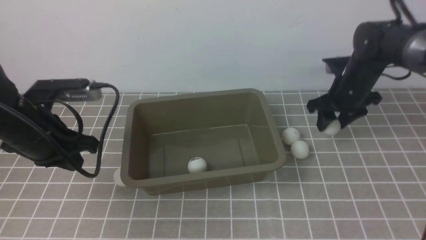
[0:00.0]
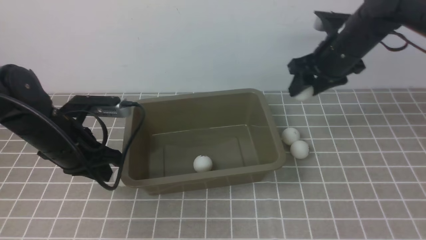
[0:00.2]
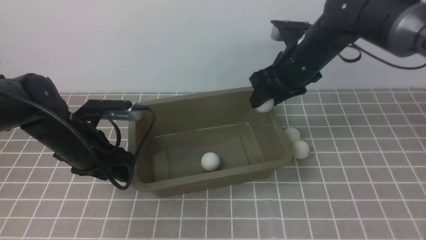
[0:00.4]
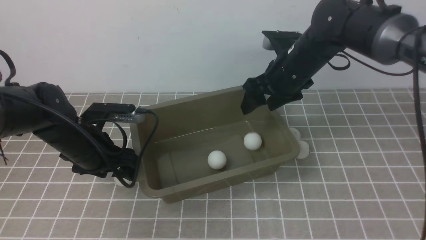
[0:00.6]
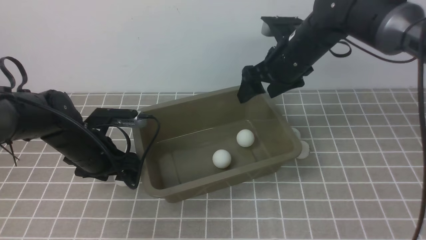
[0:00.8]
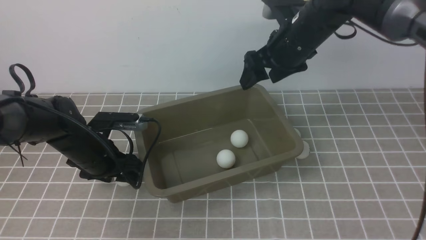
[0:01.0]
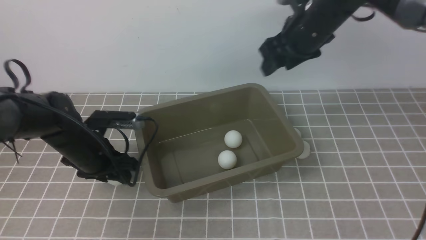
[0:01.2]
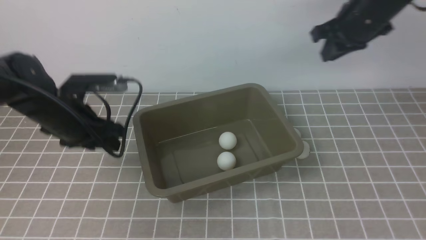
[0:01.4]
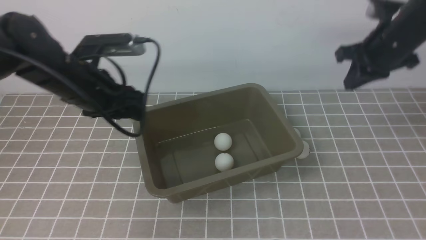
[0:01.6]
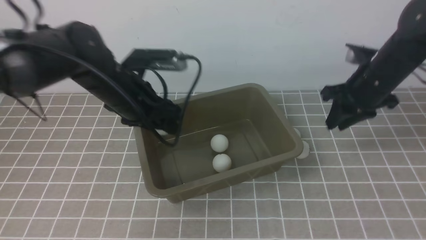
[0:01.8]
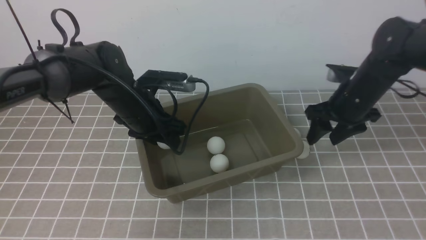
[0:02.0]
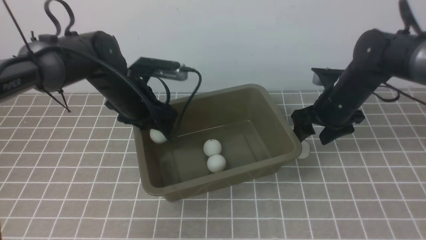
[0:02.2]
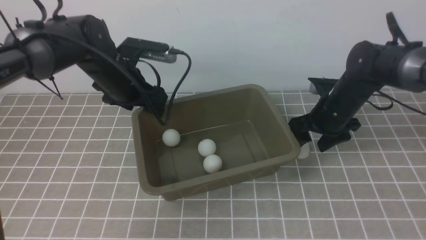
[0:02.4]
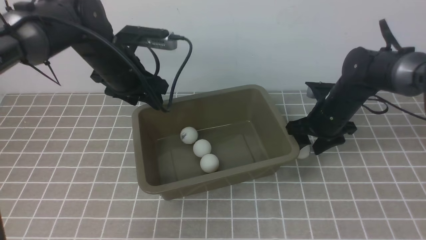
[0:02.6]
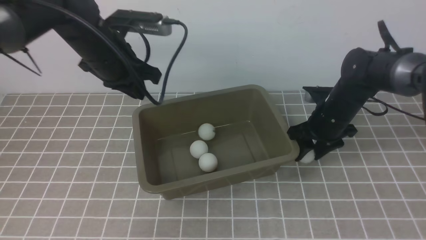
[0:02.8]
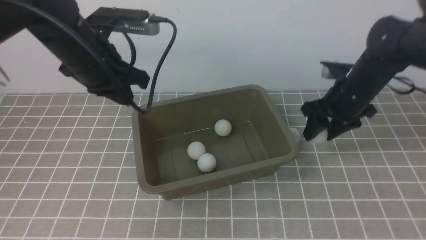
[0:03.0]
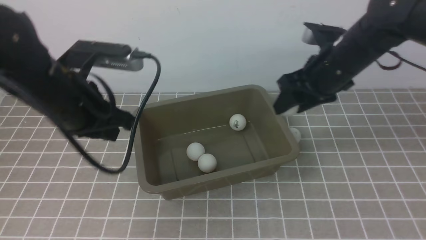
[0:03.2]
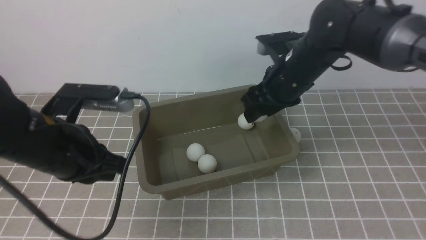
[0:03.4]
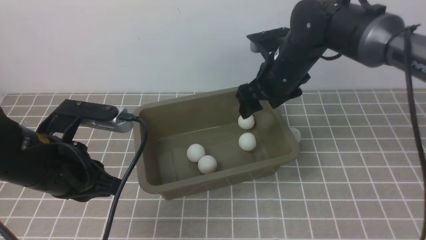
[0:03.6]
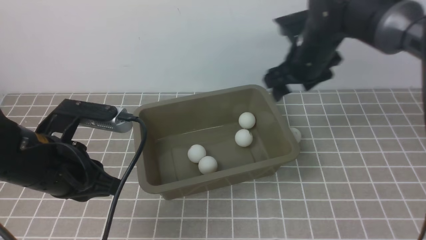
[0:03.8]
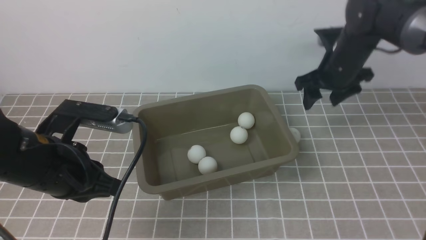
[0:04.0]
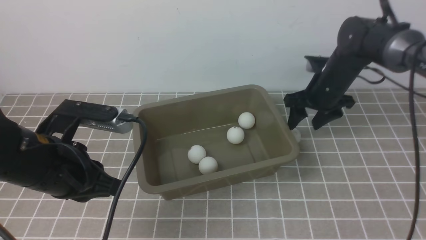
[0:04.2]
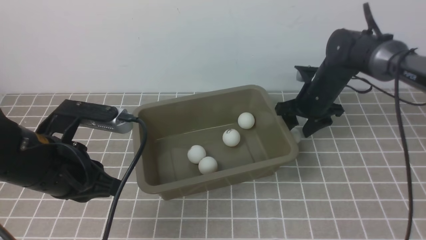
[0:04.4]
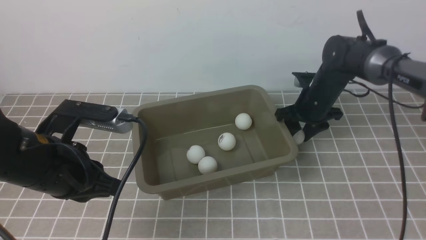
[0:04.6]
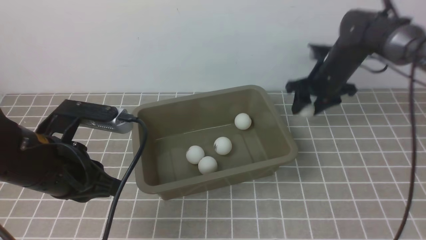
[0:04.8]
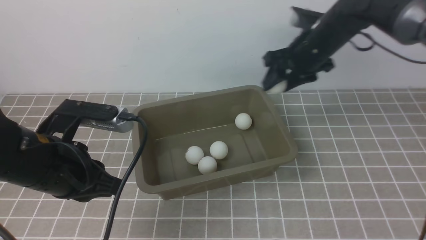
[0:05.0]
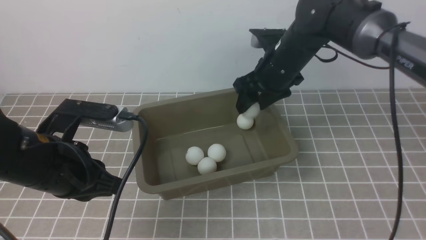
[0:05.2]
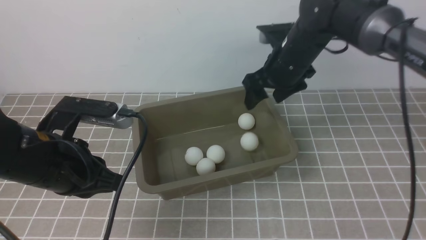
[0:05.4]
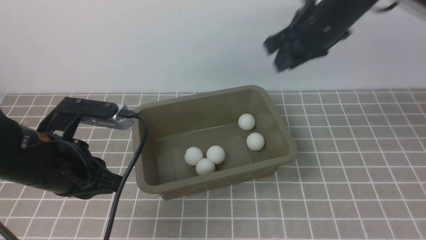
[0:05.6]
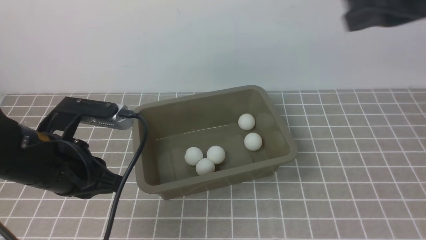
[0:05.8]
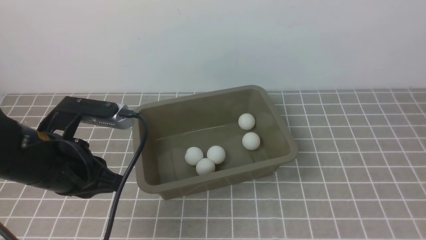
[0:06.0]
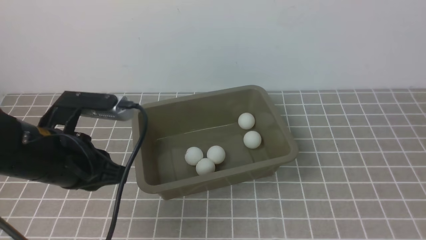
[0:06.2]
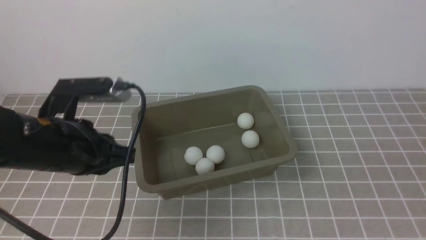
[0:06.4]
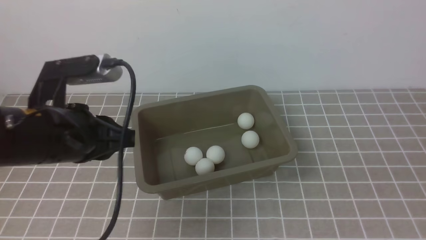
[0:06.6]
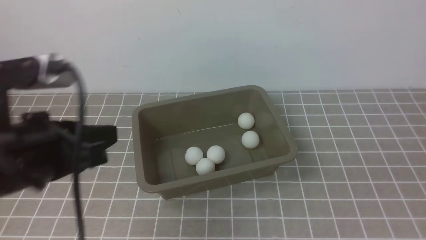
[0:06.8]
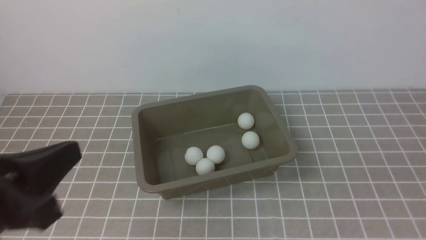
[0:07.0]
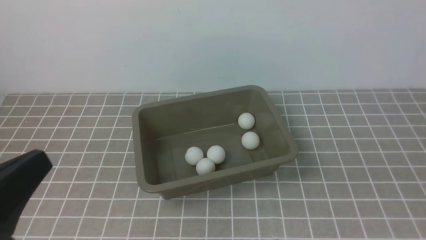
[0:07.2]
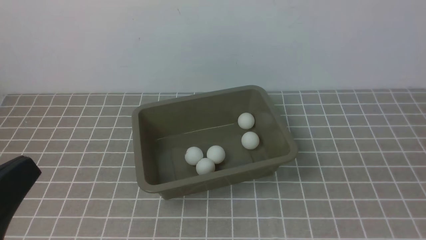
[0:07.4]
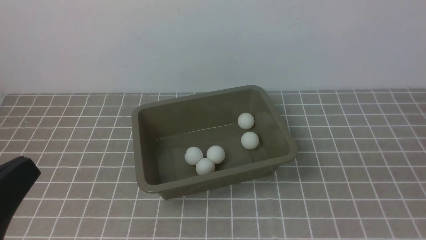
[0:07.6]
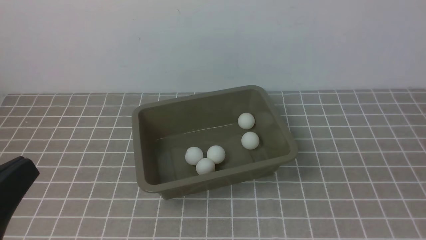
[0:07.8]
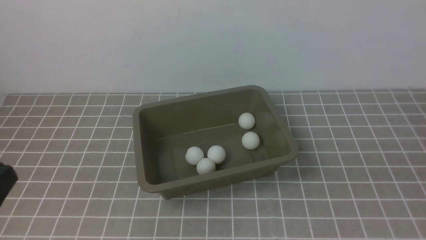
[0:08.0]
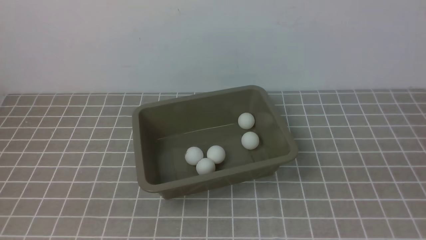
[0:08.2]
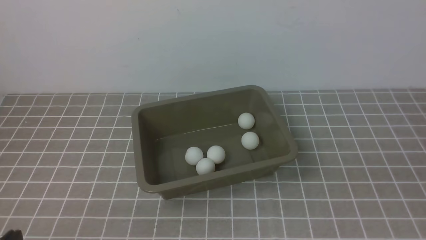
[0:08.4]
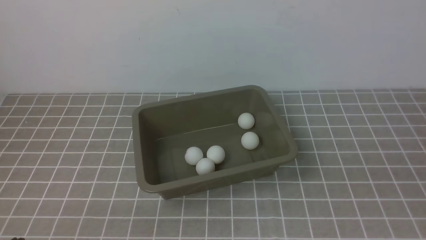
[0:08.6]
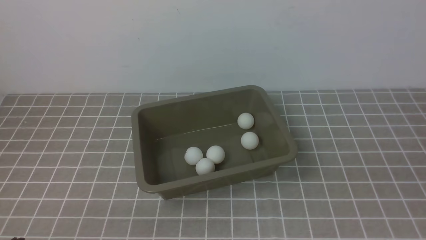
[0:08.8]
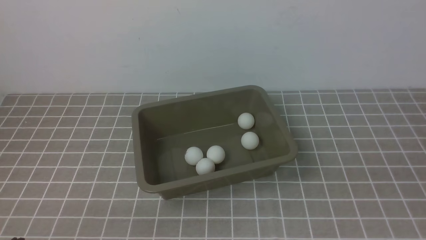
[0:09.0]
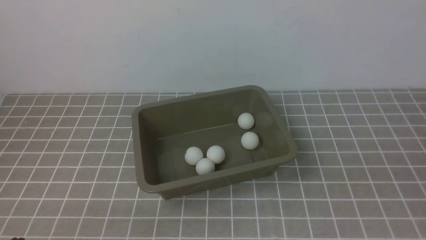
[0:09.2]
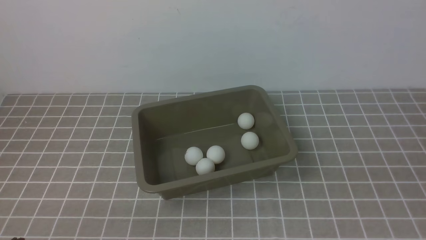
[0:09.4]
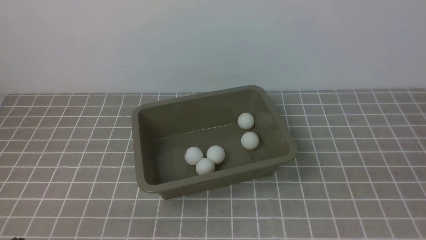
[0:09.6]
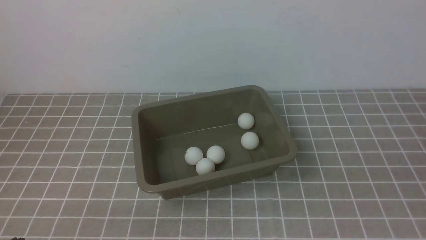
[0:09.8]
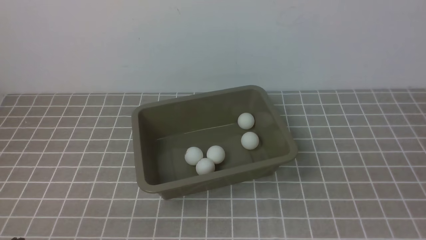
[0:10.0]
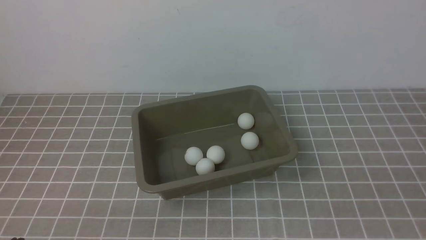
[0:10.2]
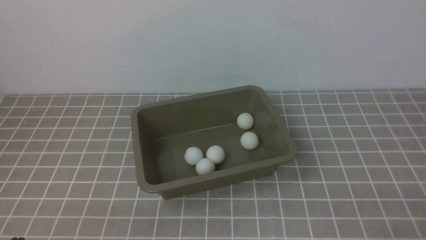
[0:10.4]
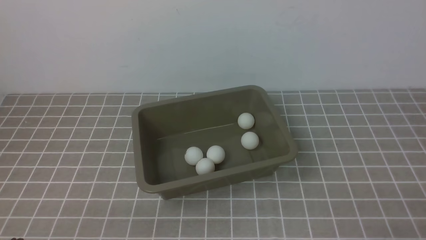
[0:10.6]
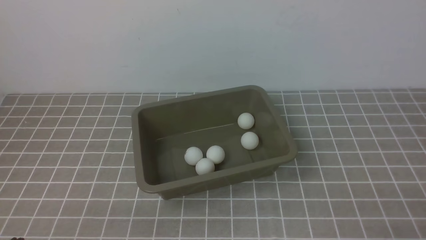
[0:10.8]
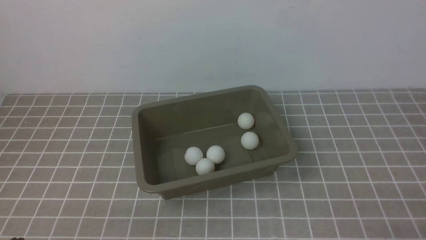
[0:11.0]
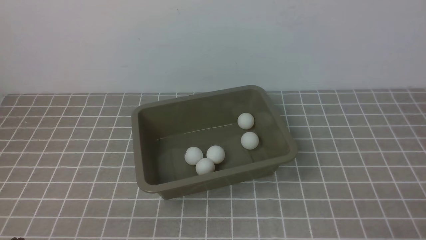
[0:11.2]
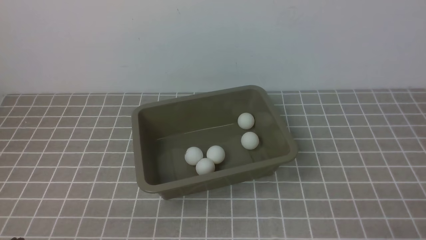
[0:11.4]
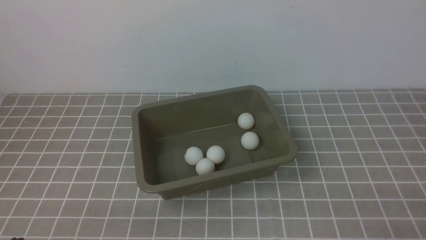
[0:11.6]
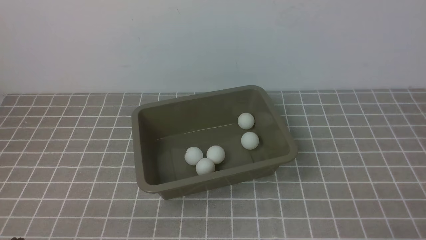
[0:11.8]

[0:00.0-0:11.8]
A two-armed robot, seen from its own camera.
Step, 0:00.2 to 0:00.6: use the right arm to put the table tennis ball into the box.
Step, 0:00.8 to 0:01.4: use the left arm to clamp the table tennis ball closest to it.
Step, 0:01.6 to 0:02.2: use the left arm to put the table tennis ball into the box.
Step, 0:02.4 to 0:03.0: use the right arm to clamp the table tennis ball closest to it.
Step, 0:03.2 to 0:03.6: use the right arm to put the table tennis ball into the box.
Step, 0:03.8 to 0:04.8: use the right arm to clamp the table tennis ball closest to it.
Step, 0:05.0 to 0:05.4: use the right arm to put the table tennis ball into the box.
0:00.0 to 0:01.4: The right gripper travels upward by some 10 cm, moves some 10 cm to the left and comes back, and closes, while the left gripper goes approximately 5 cm forward, goes downward and returns, about 10 cm each way, and opens.
0:01.4 to 0:03.0: The right gripper is displaced downward by roughly 10 cm, and opens up. The left gripper travels upward by about 10 cm, and closes up.
0:03.0 to 0:04.4: The left gripper goes about 10 cm backward. Meanwhile the right gripper goes approximately 10 cm forward and downward.
0:04.4 to 0:06.0: The right gripper shifts some 40 cm backward and upward, and closes up.
0:06.0 to 0:07.4: The right gripper heads backward, downward and to the right, covering approximately 15 cm. The left gripper goes approximately 15 cm backward.
0:07.4 to 0:08.8: The left gripper is displaced downward by roughly 15 cm.
